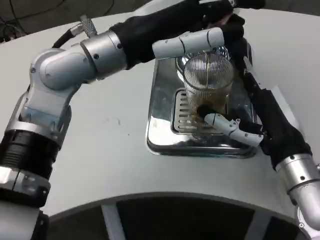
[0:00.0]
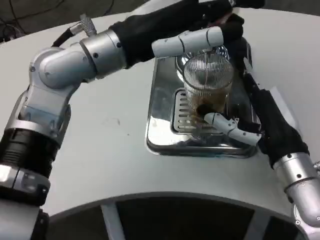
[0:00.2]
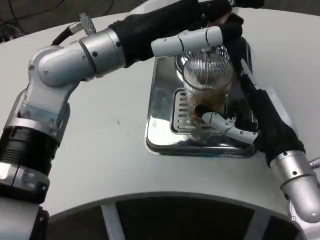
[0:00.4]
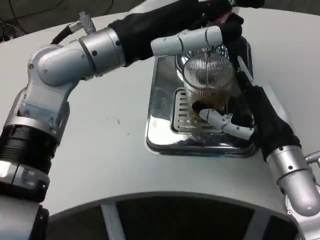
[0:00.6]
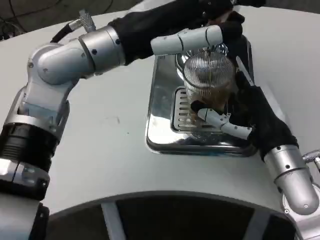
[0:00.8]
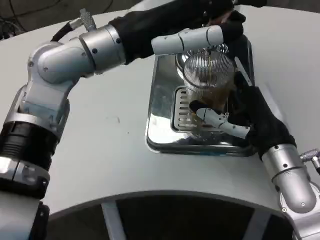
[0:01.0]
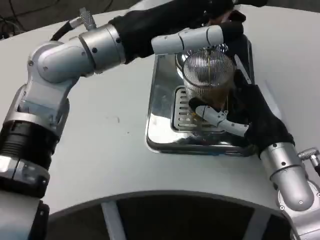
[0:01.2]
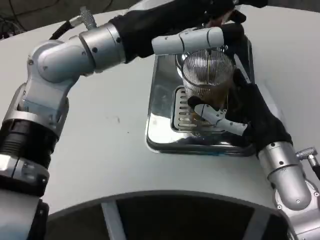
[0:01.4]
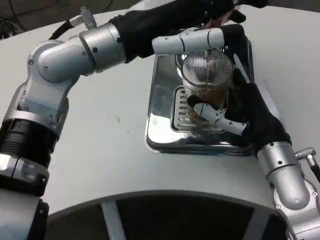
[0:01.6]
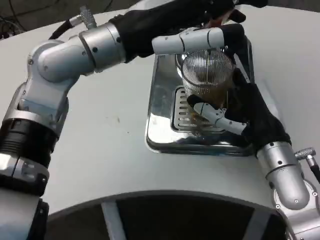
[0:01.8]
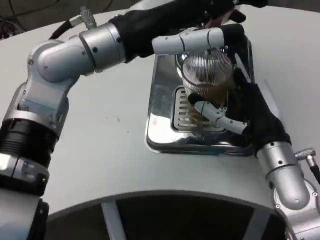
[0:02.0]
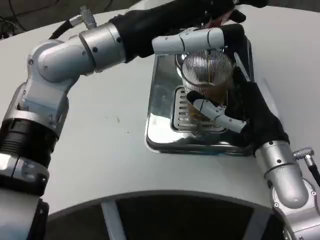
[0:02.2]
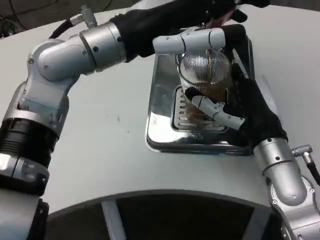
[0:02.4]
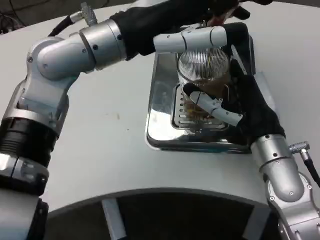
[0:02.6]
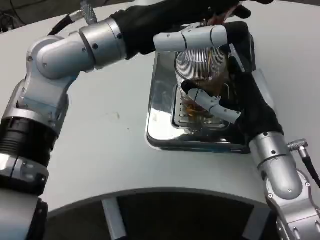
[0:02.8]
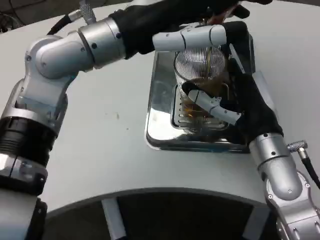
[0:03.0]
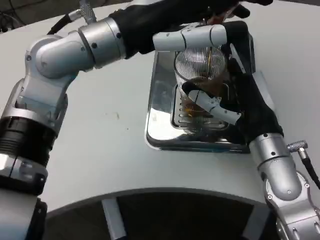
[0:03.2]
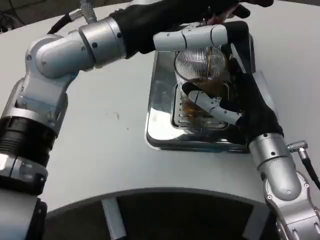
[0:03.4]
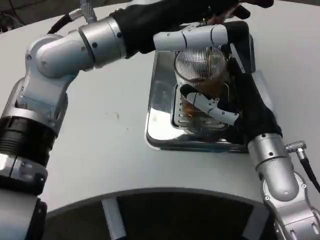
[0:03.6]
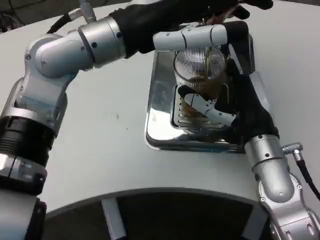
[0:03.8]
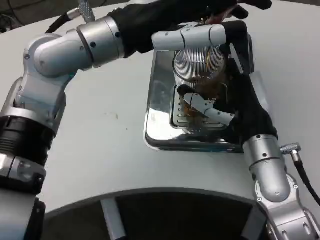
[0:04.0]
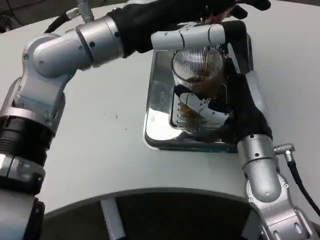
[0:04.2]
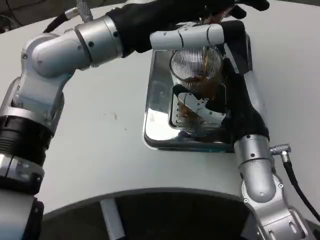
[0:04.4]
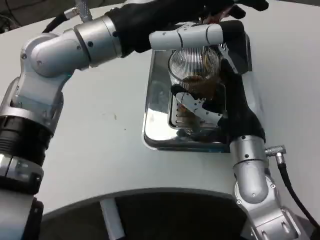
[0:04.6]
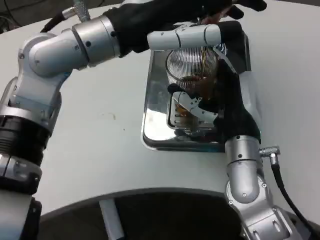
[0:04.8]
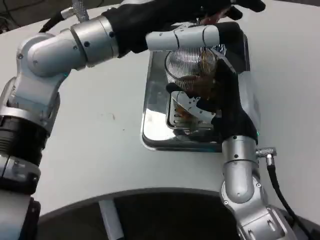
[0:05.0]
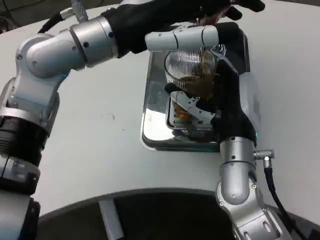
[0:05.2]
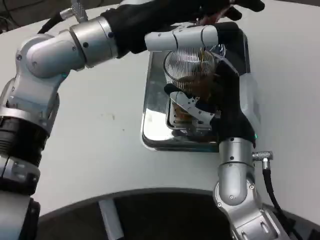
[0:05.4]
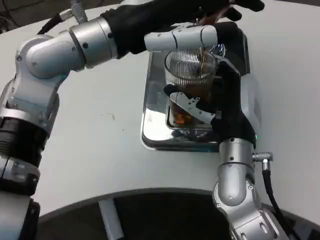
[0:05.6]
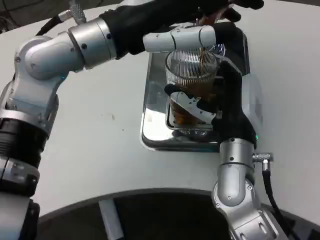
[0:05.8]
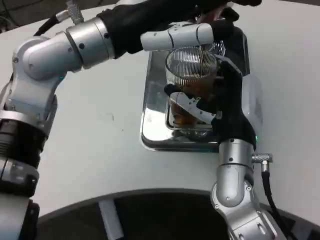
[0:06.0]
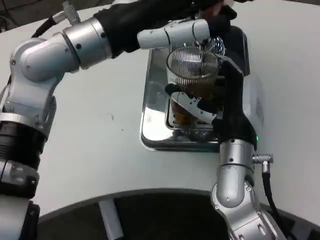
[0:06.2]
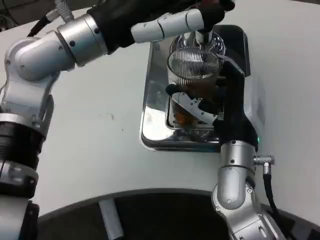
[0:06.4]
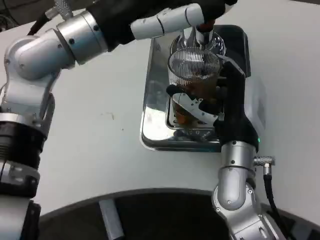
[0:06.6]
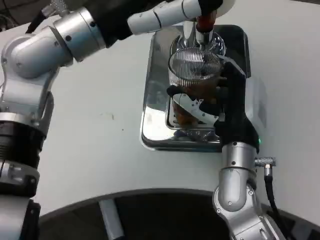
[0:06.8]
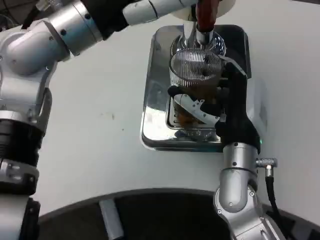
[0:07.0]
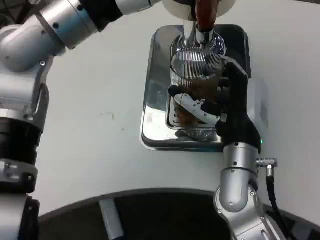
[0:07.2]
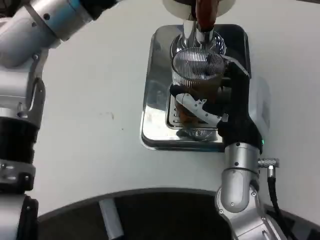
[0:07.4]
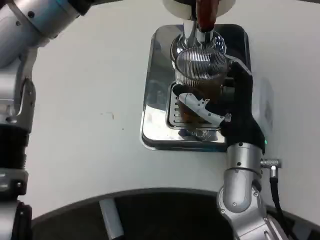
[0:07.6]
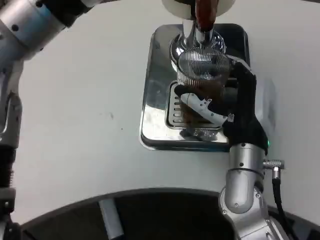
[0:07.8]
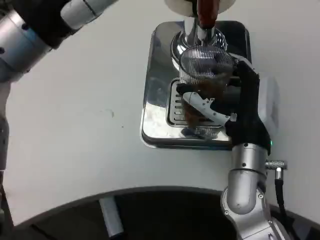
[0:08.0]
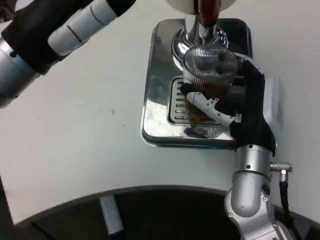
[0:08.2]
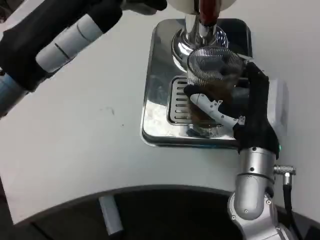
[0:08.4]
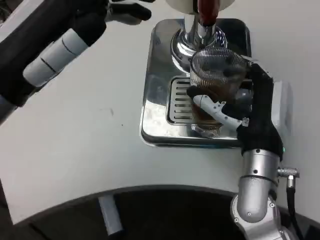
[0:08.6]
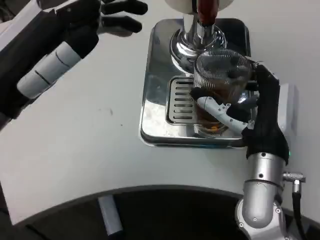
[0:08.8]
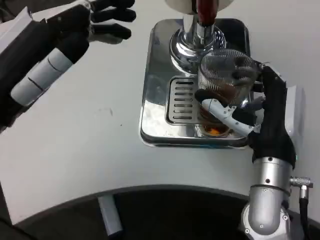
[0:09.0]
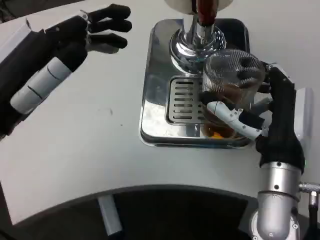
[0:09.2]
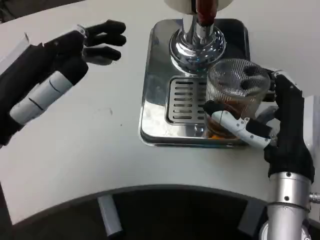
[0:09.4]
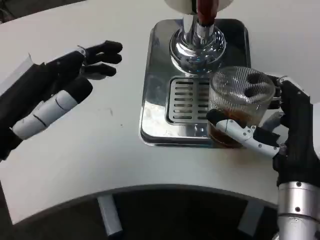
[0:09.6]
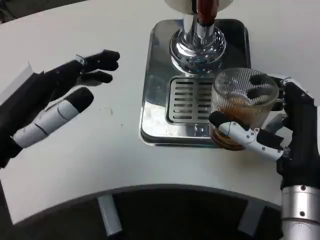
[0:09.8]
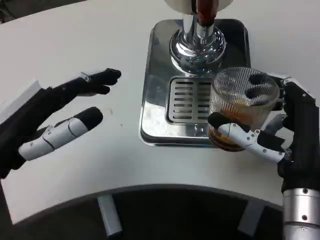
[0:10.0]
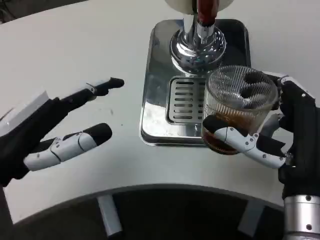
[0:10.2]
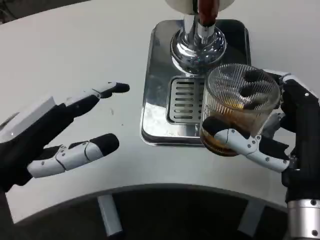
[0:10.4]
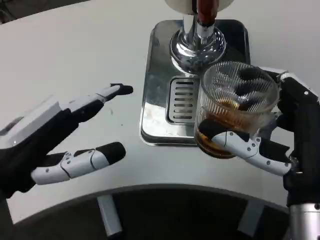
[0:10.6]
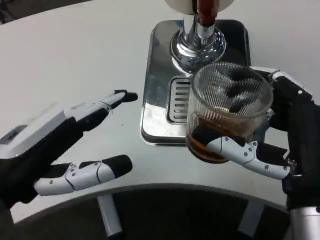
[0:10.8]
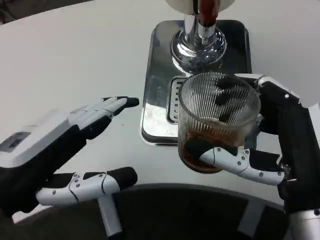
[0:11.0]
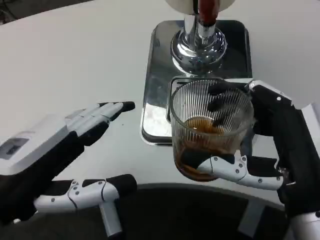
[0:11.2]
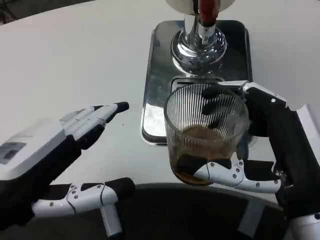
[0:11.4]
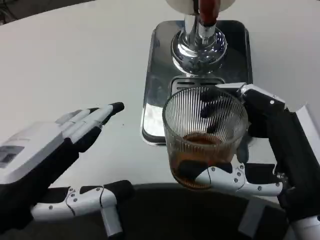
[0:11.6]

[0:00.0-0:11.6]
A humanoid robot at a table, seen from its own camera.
Task of the whole recording: Grasp the cup under the faucet to collect the drink, then remove the cup.
0:07.2 to 0:08.8: The left hand travels downward, backward and to the left by about 15 cm.
0:08.8 to 0:10.2: The left hand goes roughly 5 cm downward; the right hand is displaced backward by approximately 10 cm.
0:10.2 to 0:11.6: The left hand travels backward by approximately 5 cm.

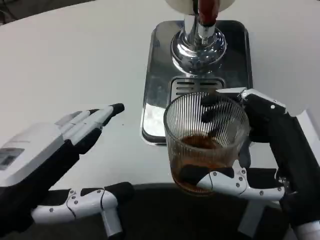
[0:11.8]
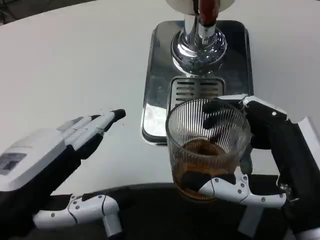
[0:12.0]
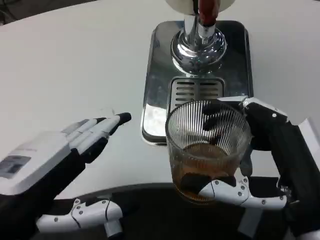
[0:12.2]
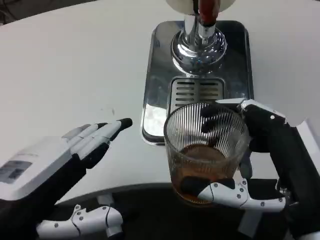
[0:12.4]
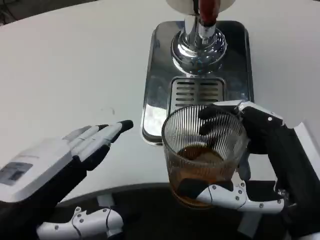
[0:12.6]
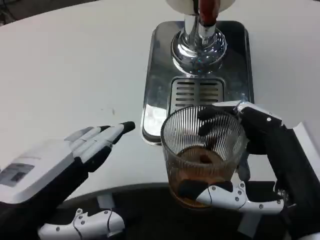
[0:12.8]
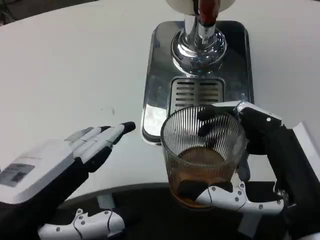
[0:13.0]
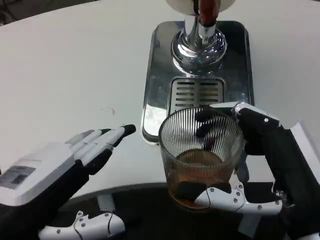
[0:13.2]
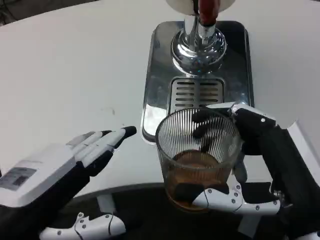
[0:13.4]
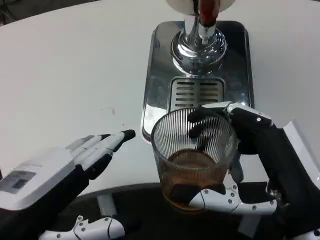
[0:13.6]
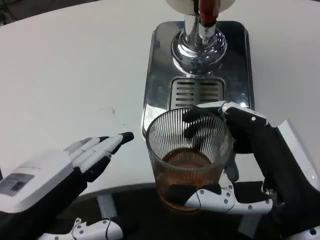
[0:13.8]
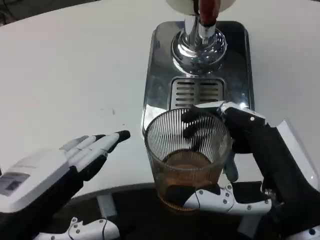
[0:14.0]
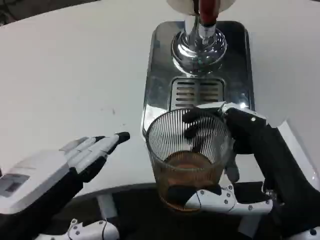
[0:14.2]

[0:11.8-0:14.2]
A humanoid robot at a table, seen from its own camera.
Task of the whole recording: Grasp the cup under the faucet to collect the drink, then remove the cup.
0:13.0 to 0:14.2: Both hands stay about where they are.

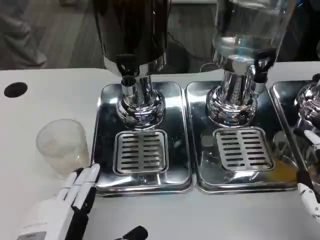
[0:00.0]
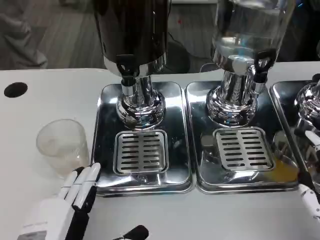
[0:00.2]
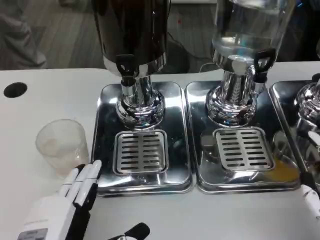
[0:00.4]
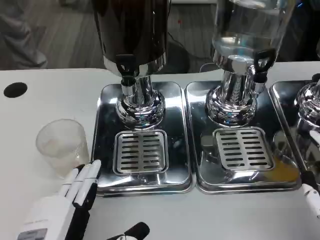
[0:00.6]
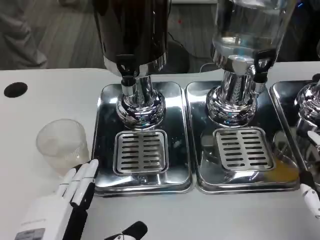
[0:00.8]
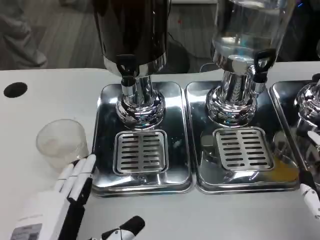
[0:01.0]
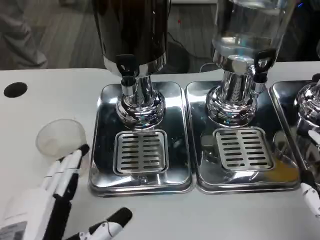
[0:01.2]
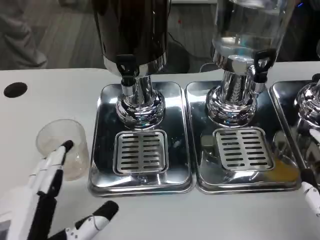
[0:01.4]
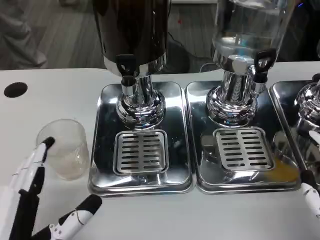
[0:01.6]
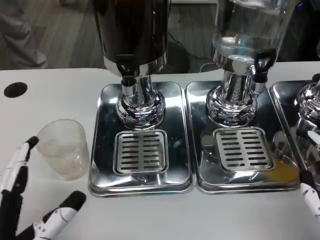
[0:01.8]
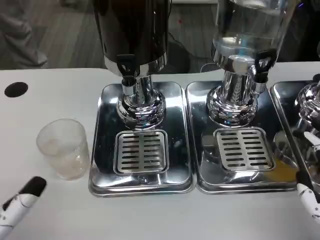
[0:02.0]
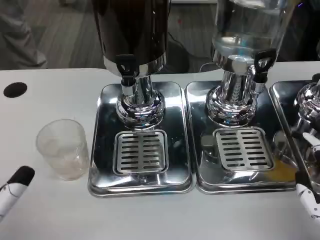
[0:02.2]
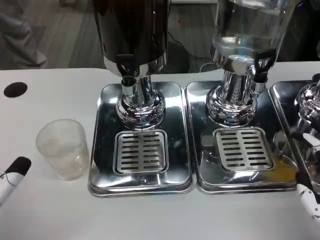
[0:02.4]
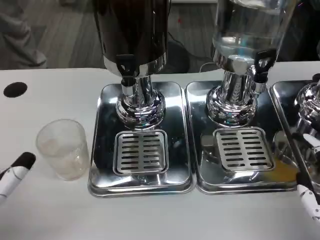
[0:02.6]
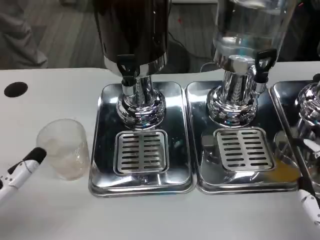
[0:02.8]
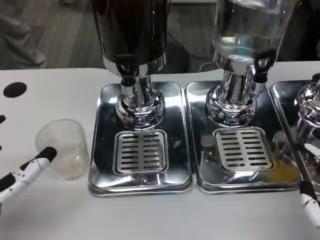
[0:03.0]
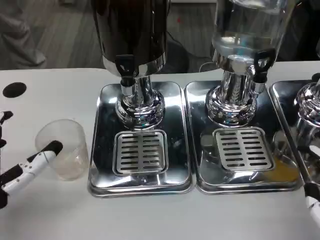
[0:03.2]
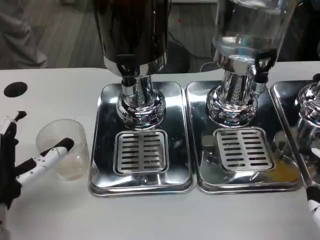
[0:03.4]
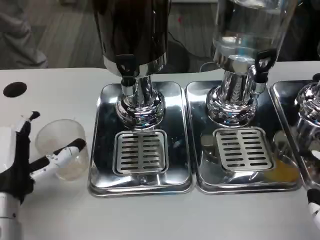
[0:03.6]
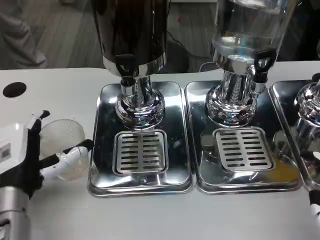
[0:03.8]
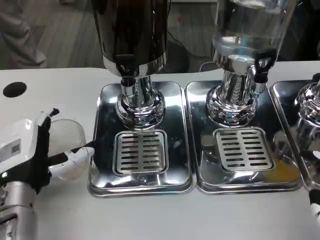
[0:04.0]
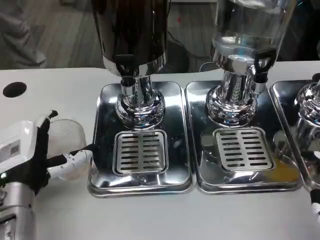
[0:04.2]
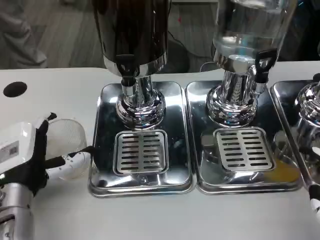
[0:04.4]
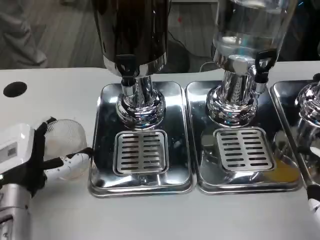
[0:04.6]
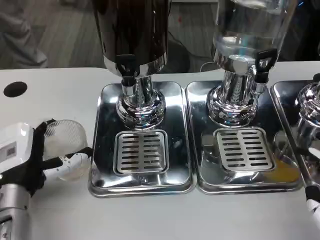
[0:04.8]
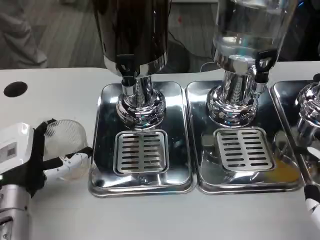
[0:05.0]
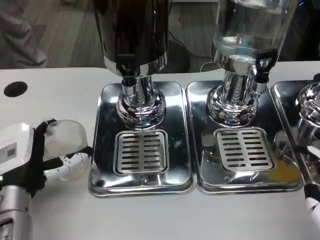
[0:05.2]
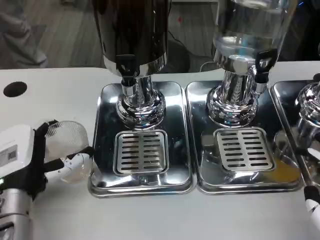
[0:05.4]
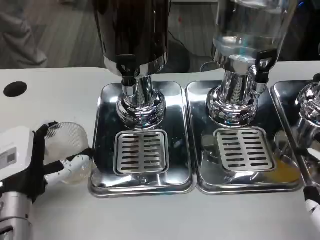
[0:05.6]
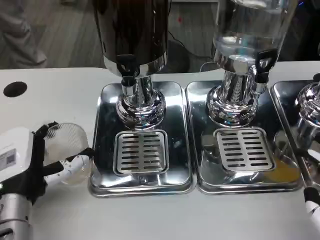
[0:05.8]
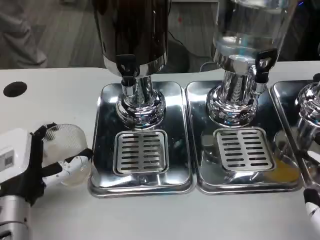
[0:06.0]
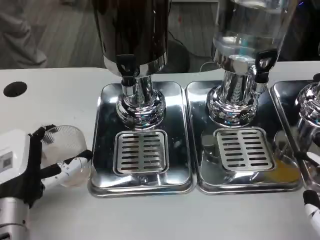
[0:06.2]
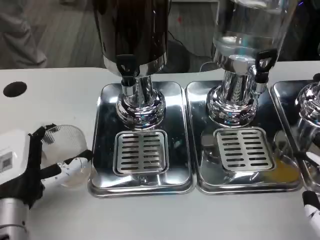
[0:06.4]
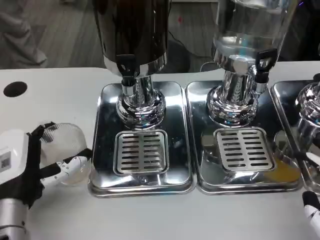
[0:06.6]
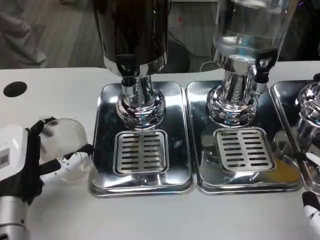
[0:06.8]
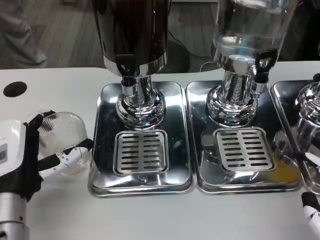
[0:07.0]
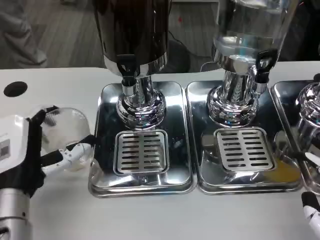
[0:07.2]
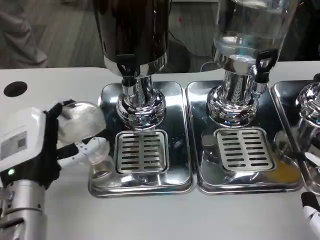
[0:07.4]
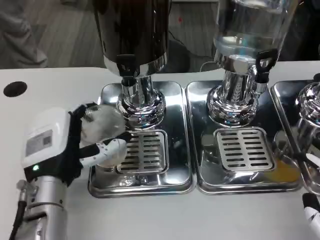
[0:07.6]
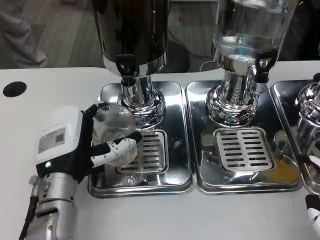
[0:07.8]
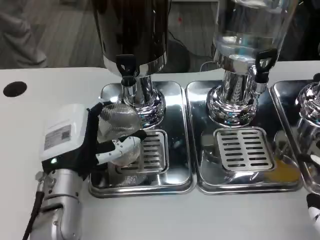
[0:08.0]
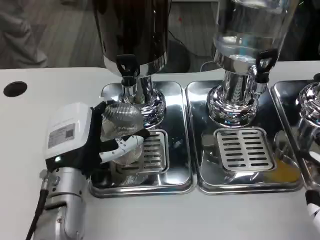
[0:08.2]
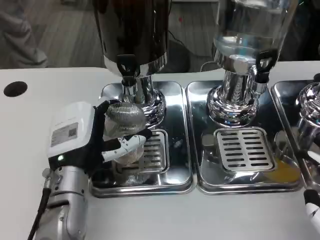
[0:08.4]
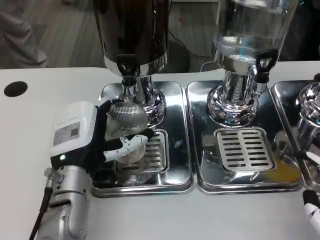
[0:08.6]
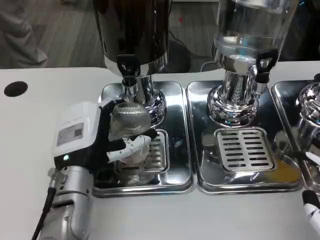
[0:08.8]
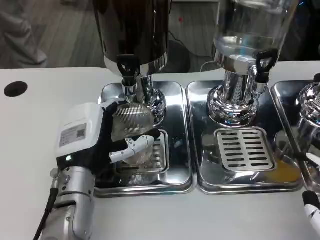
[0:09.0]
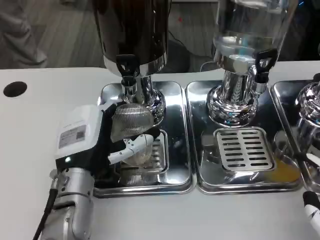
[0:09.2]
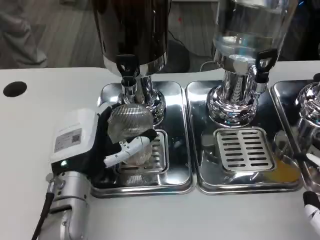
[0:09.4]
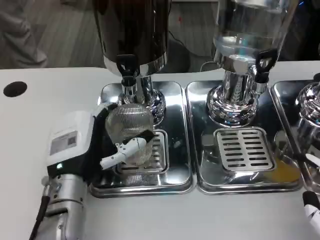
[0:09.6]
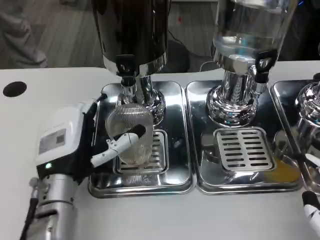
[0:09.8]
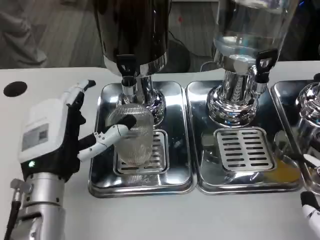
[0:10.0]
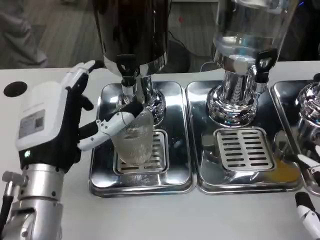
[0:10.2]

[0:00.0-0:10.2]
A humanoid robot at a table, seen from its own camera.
Task of the whole recording: Grasp the cup under the faucet to collect the drink, then remove the cup.
0:00.0 to 0:01.4: The hands make only small movements.
0:01.4 to 0:03.0: The left hand goes about 5 cm forward.
0:03.0 to 0:04.4: The left hand moves forward, some 5 cm.
0:04.4 to 0:07.2: The hands make only small movements.
0:07.2 to 0:08.8: The left hand is displaced to the right by approximately 5 cm.
0:08.8 to 0:10.2: The left hand goes about 5 cm upward.
